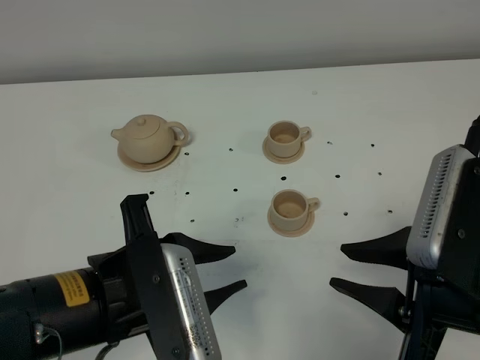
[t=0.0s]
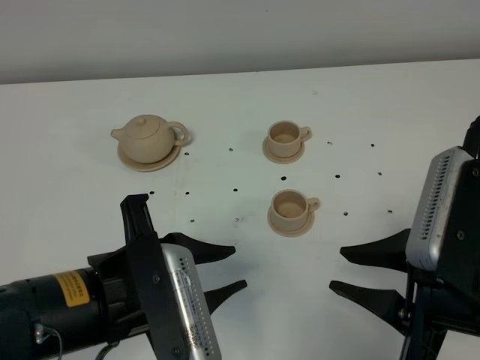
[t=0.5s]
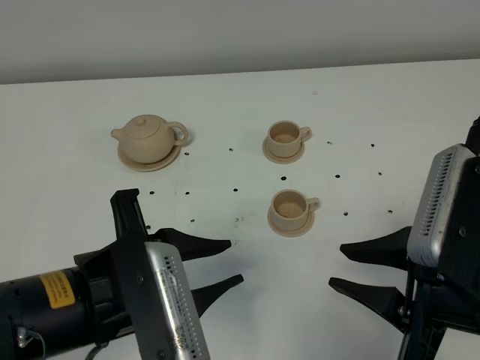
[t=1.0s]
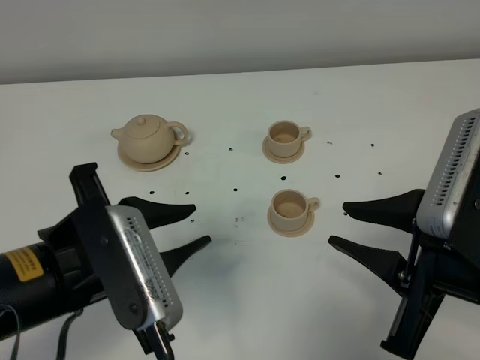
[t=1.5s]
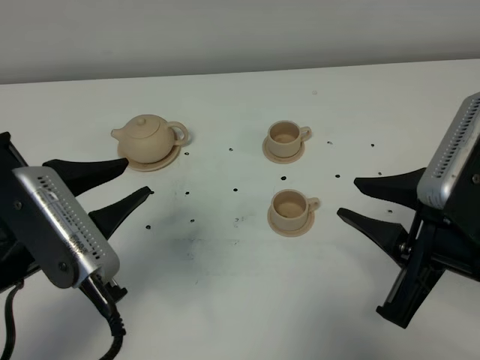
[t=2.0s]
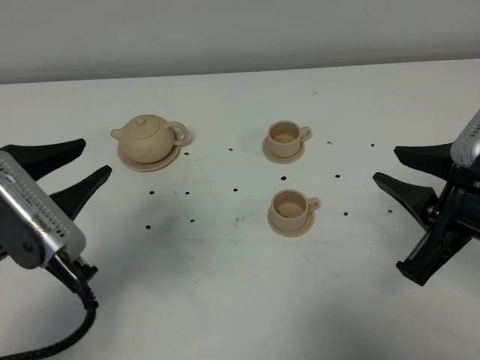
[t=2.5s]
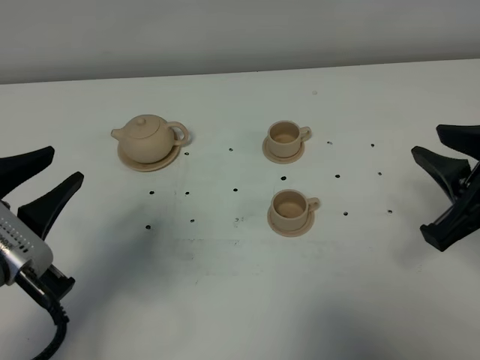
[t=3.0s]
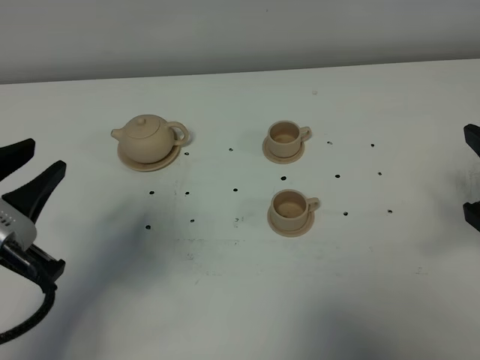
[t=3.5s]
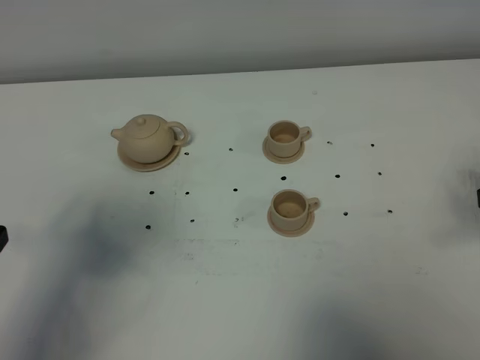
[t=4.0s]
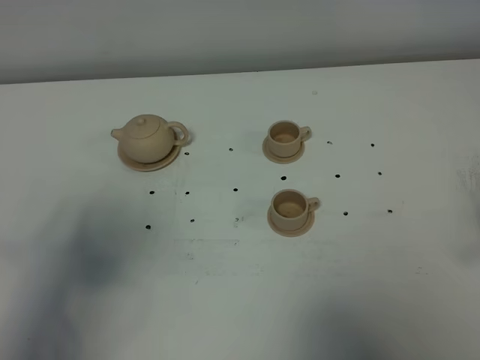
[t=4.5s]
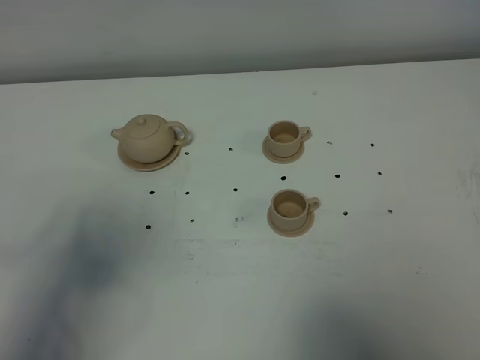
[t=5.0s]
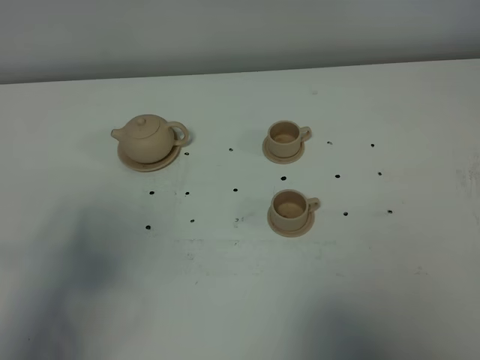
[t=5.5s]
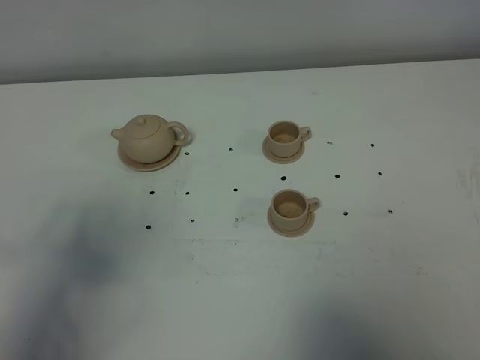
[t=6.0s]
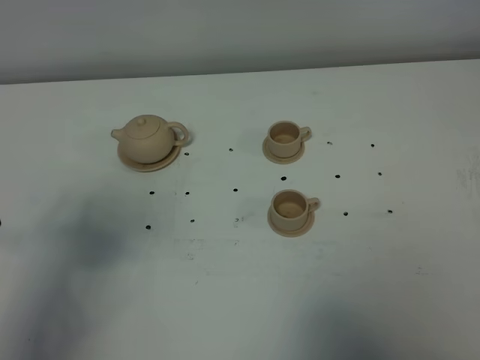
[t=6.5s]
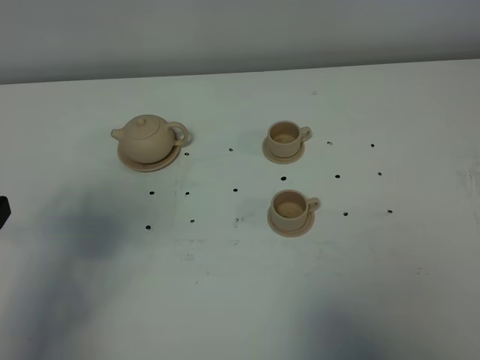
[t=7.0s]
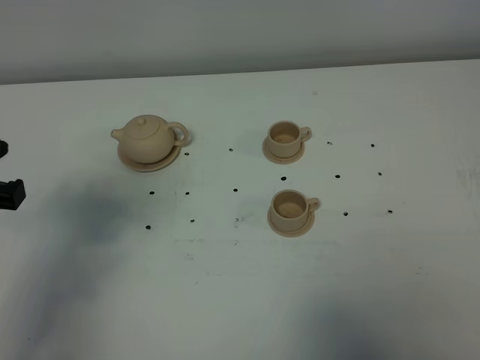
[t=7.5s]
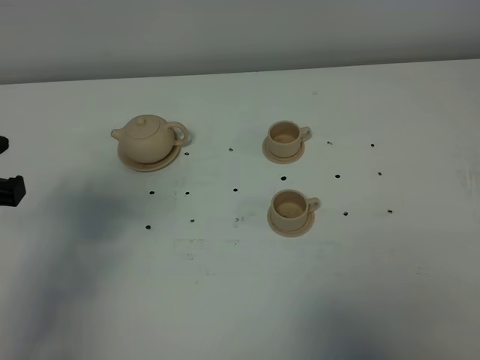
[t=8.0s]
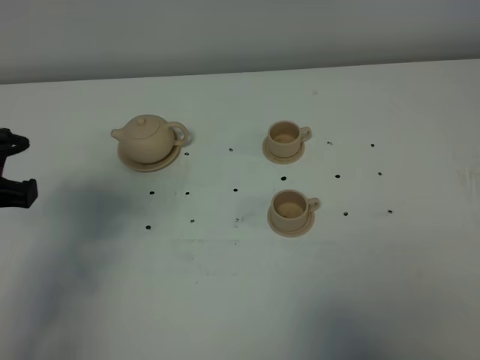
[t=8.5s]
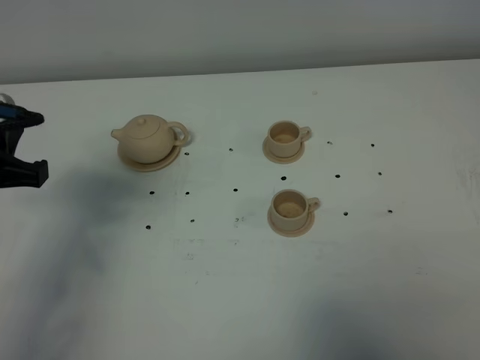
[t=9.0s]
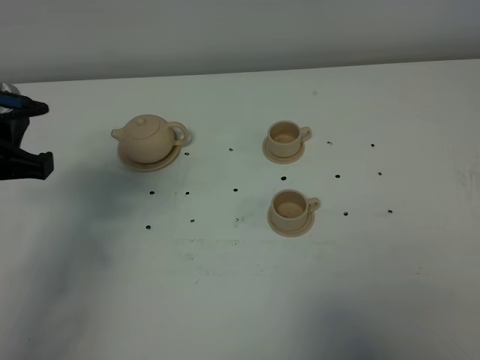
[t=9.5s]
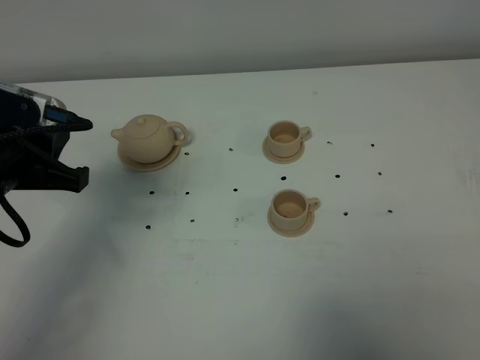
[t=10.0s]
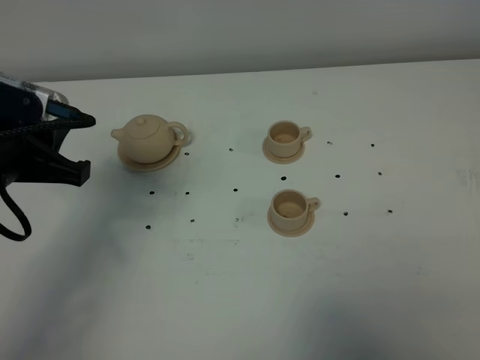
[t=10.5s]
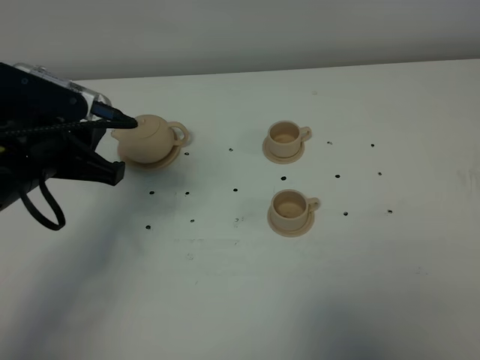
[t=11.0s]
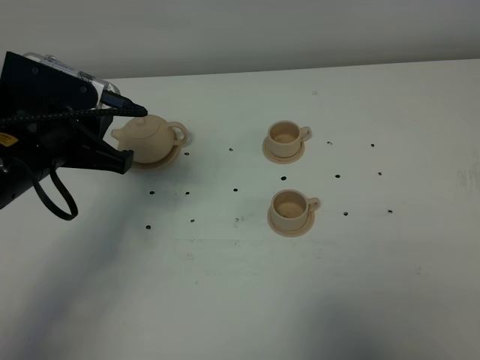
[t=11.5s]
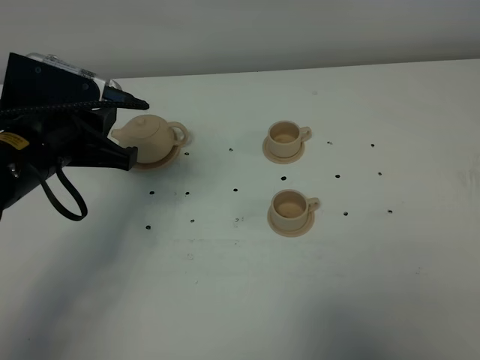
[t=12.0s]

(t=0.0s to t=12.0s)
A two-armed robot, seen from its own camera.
Task of the whole recording: grasp the brown teapot and pour the tea into the two brown teacups one by one, put the brown teapot back in its original place.
t=0.0s - t=2.0s: The left gripper heads to the left, covering about 5 cm.
t=2.0s - t=4.0s: The left gripper heads to the left, covering roughly 10 cm. Meanwhile the right gripper moves to the right, roughly 10 cm.
t=6.0s - t=8.0s: The left gripper is displaced forward by roughly 5 cm.
t=8.0s - t=10.0s: The left gripper shifts some 5 cm forward.
t=10.0s - t=12.0s: The left gripper changes place by roughly 5 cm.

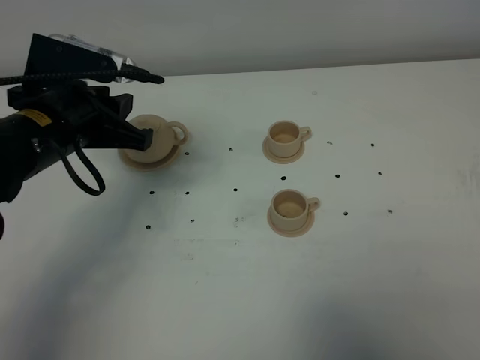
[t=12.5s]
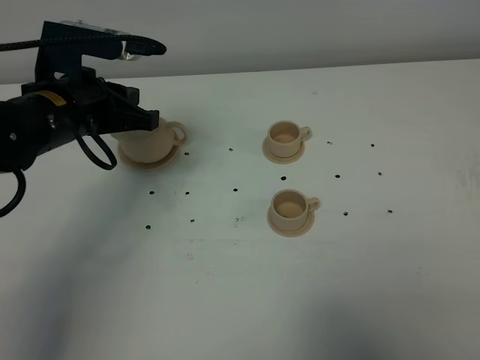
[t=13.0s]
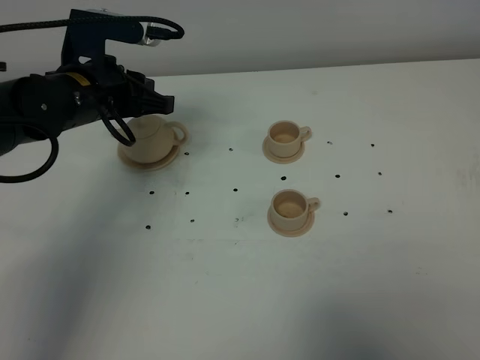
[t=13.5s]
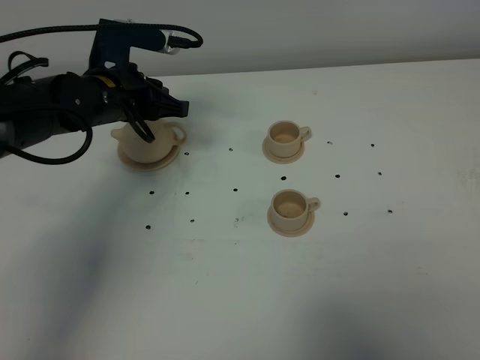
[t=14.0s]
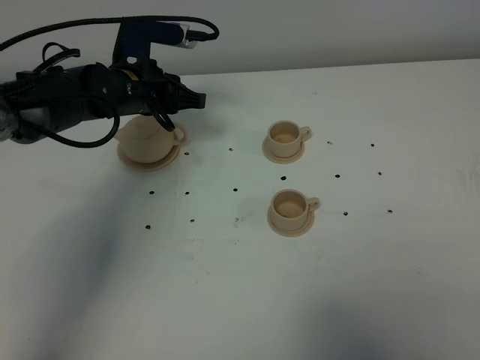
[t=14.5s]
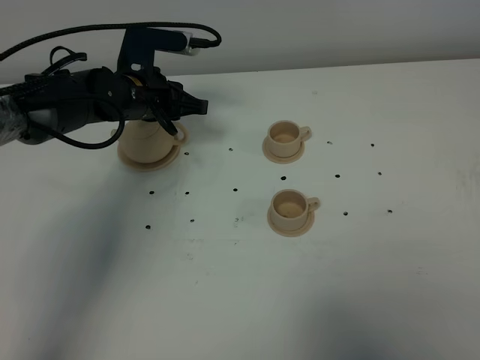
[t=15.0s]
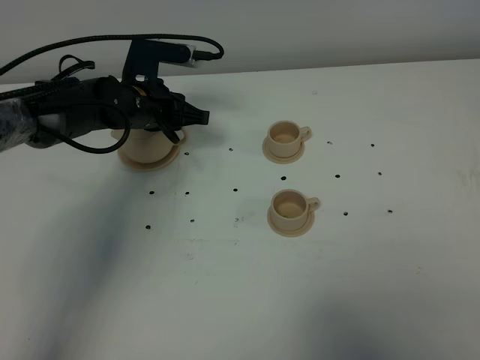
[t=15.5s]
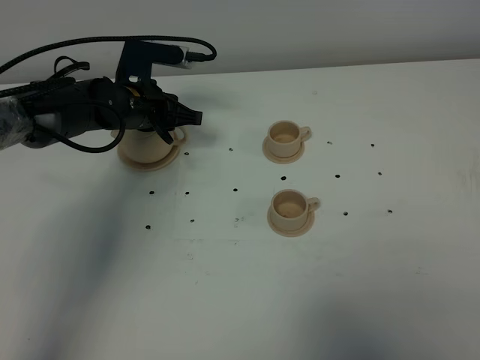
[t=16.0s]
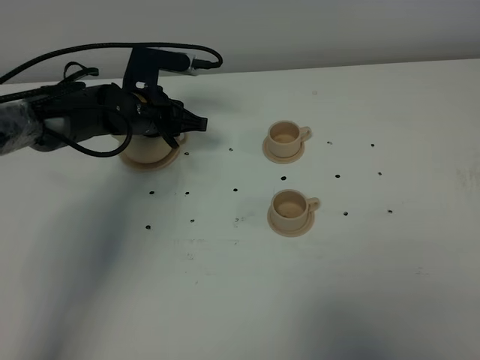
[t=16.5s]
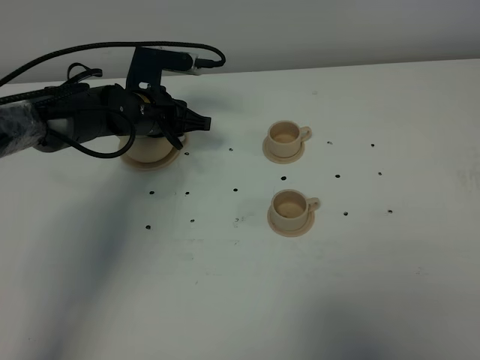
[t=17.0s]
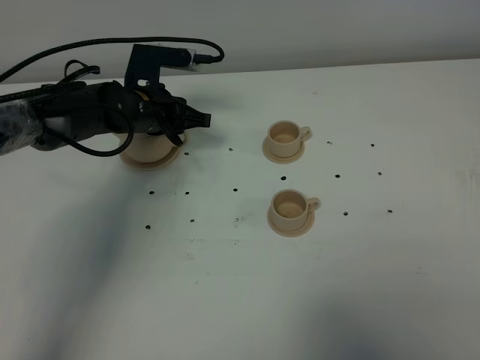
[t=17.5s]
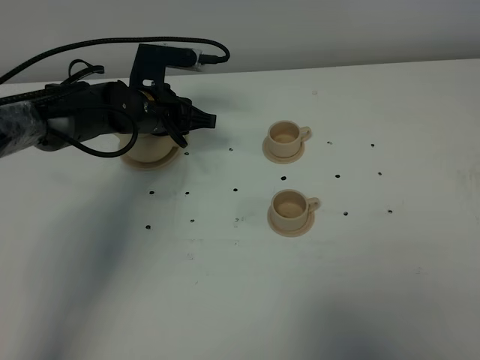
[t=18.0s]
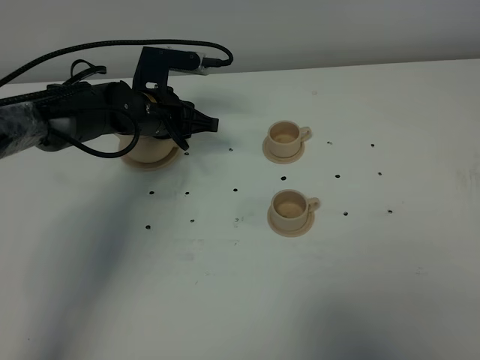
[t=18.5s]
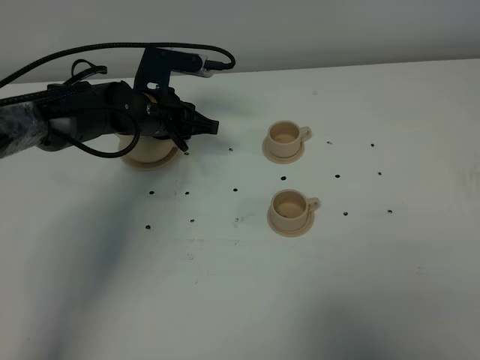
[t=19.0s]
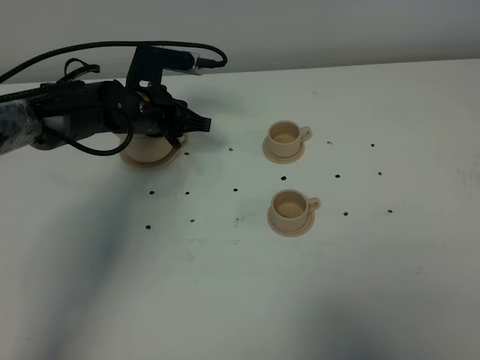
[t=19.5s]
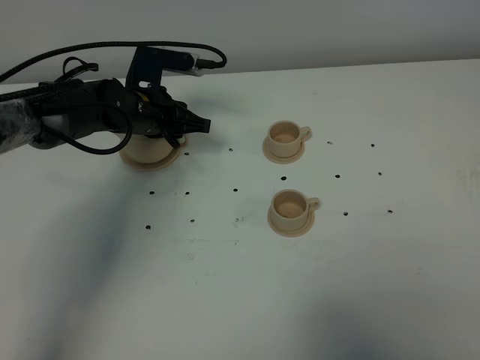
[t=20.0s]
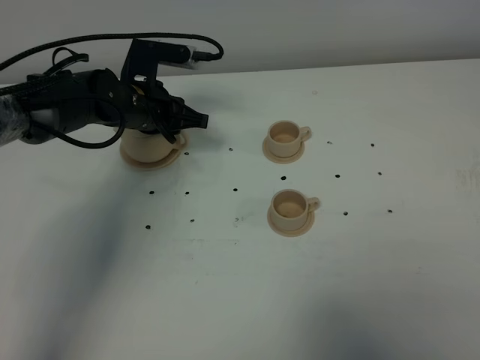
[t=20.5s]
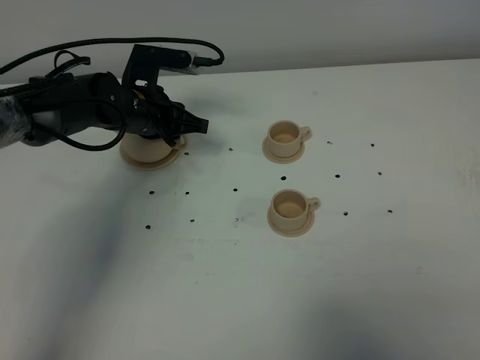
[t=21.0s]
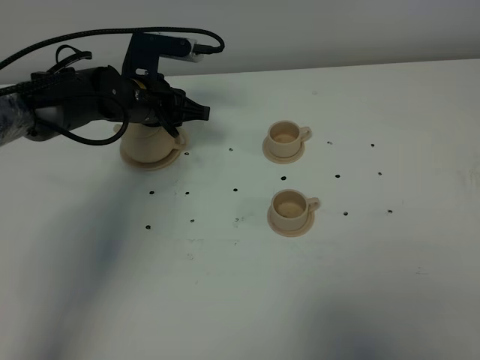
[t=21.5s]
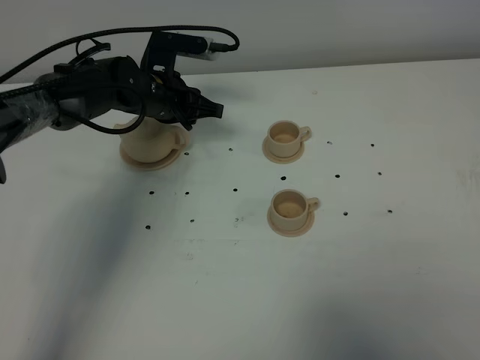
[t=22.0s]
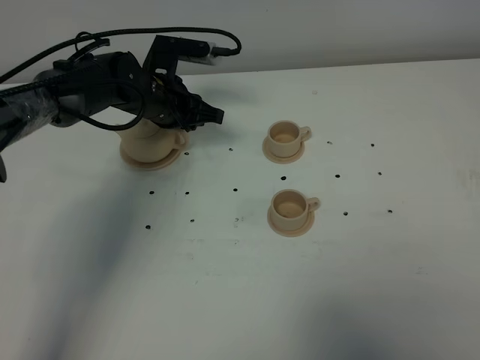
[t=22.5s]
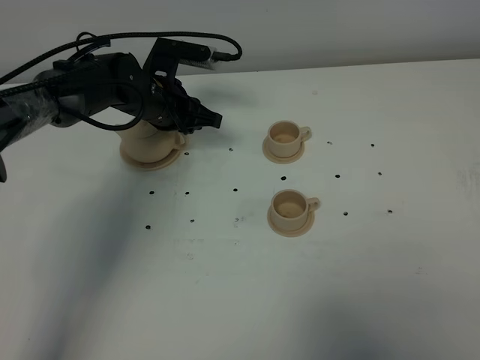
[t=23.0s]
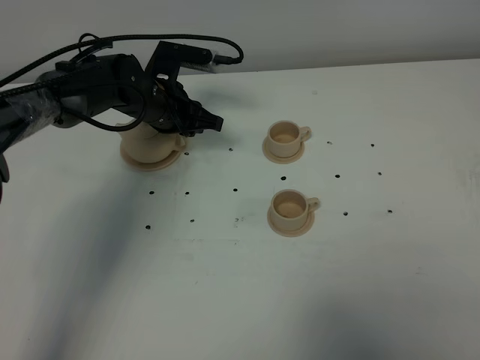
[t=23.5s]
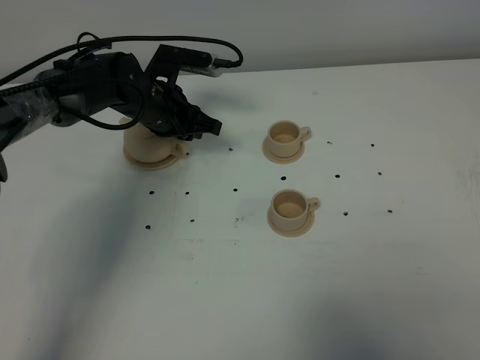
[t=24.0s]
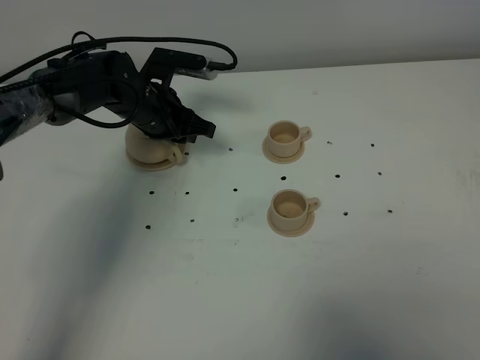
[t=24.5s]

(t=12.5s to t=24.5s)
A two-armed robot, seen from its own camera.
Task of the whole recording: grasp the brown teapot and pour the tea into the two brown teacups one by one, put the brown teapot back in its original place.
t=12.5s - t=14.5s: The left gripper travels forward and downward by approximately 15 cm.
t=14.5s - t=22.5s: The grippers make only small movements.
t=22.5s - t=24.5s: There are only small adjustments of the grippers.

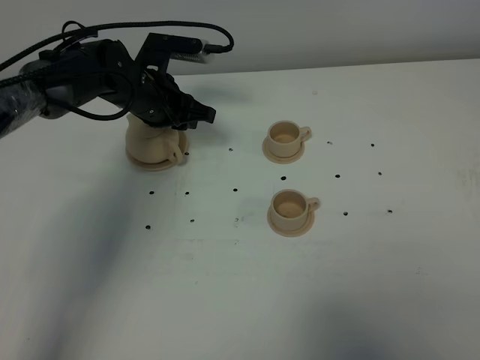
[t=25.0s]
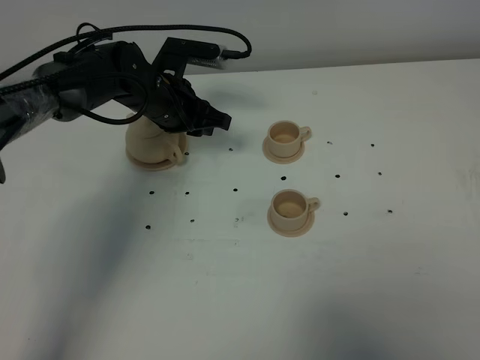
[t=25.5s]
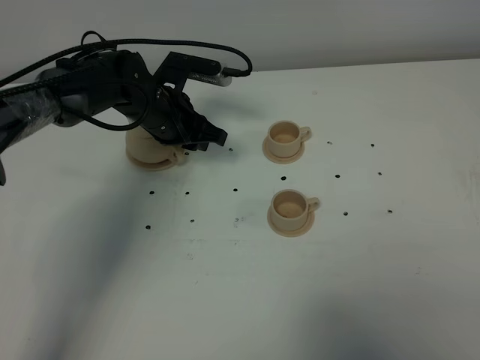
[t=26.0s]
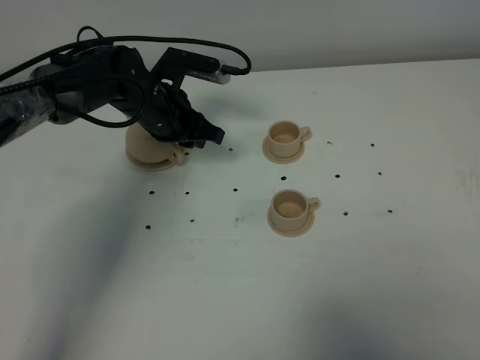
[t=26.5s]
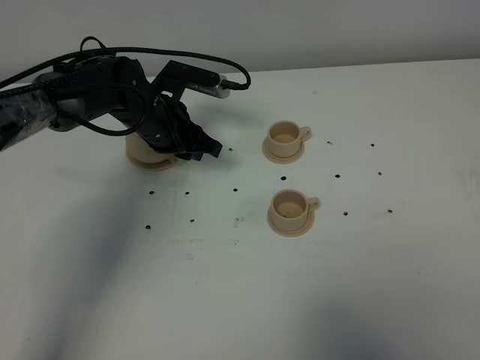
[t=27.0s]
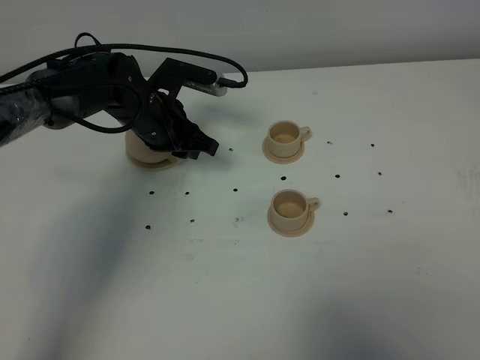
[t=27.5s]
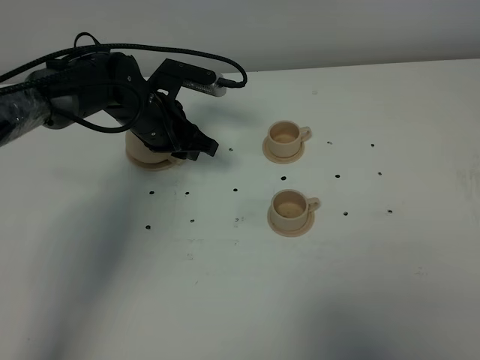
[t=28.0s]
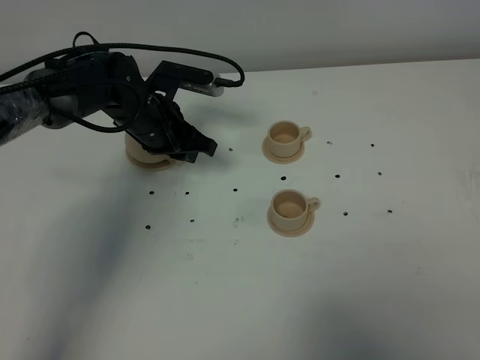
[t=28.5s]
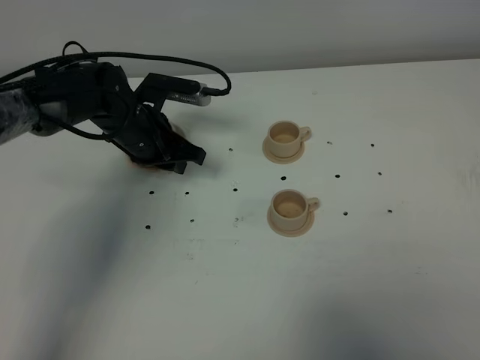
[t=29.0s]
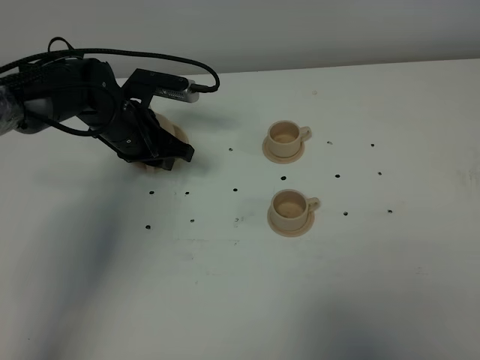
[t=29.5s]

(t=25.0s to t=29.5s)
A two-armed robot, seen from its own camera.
Task of the whole recording: grasp the brown teapot and pour the tea into the two brown teacups one by one, put the brown teapot back in its original place.
t=25.0s - t=29.5s: There are only small adjustments of the grippers.
